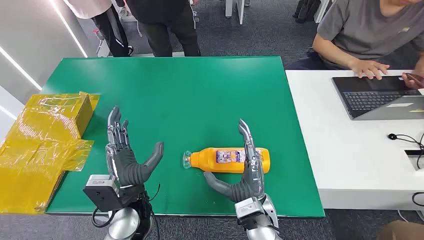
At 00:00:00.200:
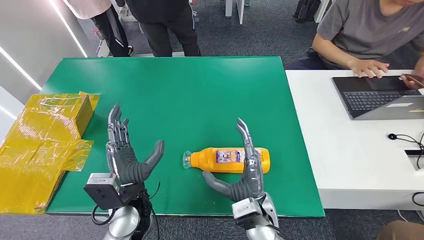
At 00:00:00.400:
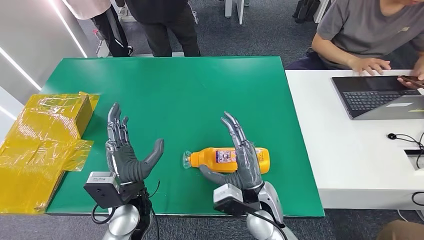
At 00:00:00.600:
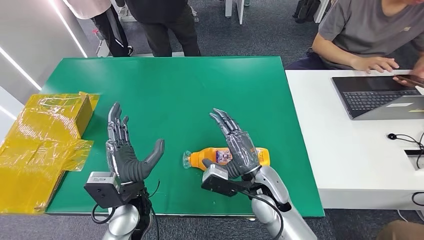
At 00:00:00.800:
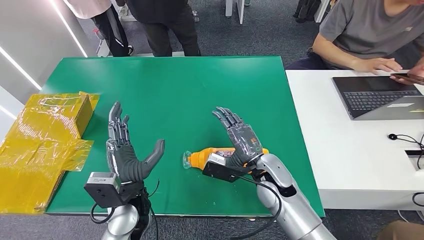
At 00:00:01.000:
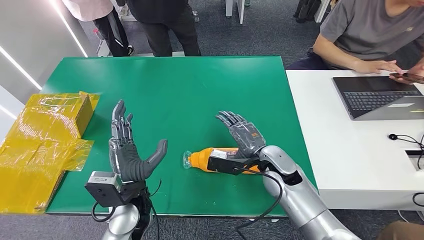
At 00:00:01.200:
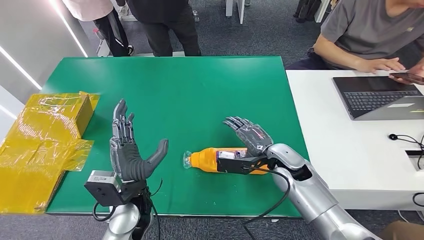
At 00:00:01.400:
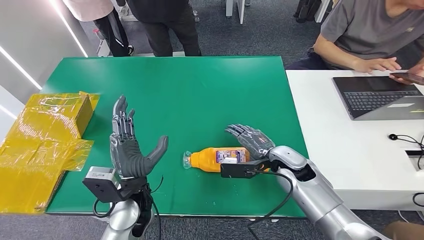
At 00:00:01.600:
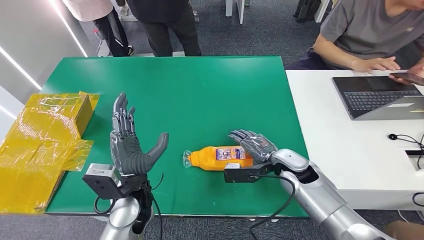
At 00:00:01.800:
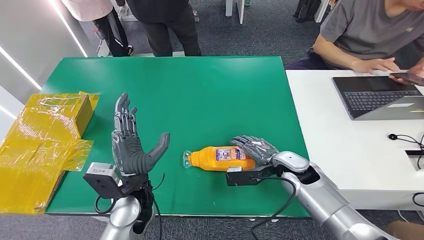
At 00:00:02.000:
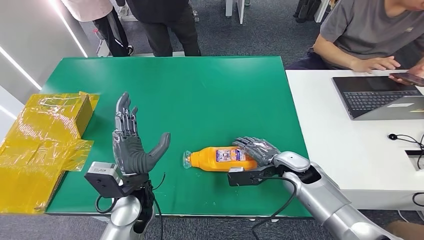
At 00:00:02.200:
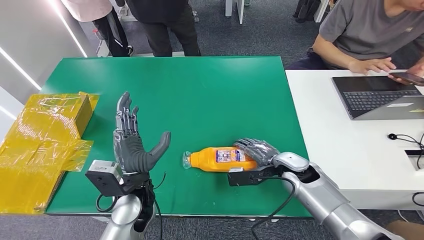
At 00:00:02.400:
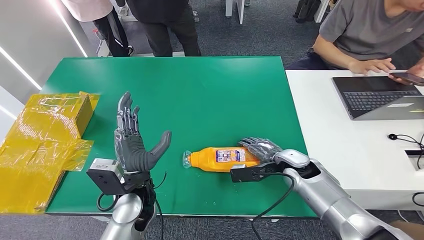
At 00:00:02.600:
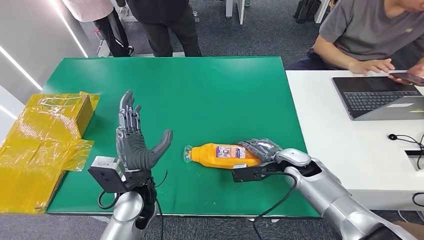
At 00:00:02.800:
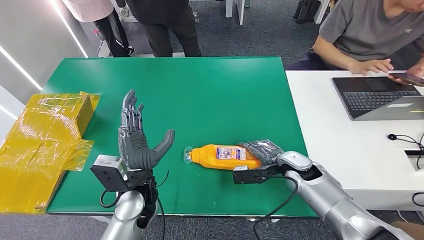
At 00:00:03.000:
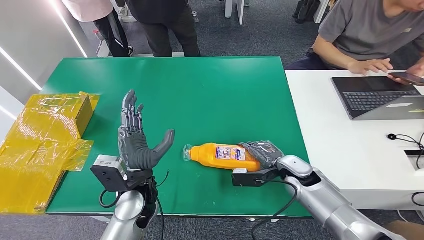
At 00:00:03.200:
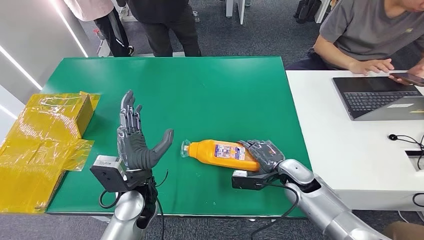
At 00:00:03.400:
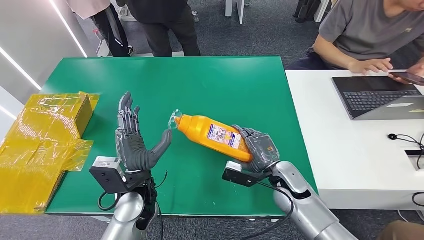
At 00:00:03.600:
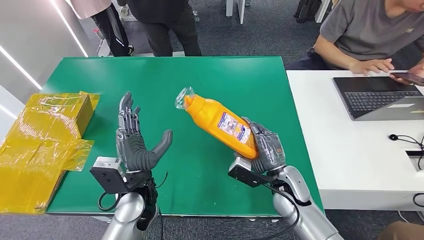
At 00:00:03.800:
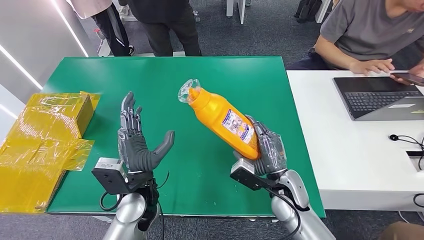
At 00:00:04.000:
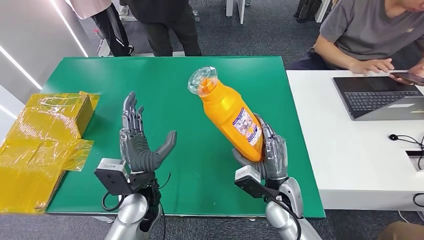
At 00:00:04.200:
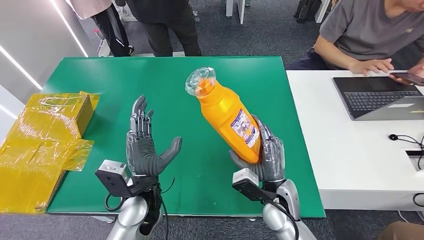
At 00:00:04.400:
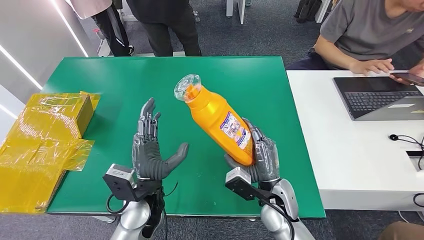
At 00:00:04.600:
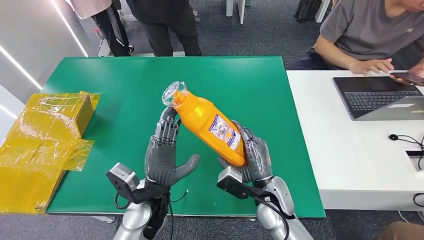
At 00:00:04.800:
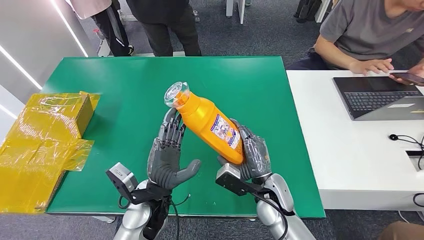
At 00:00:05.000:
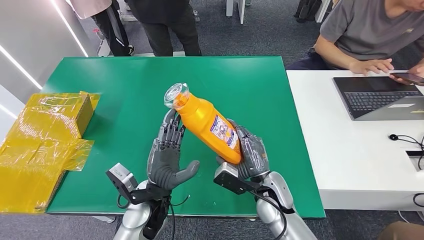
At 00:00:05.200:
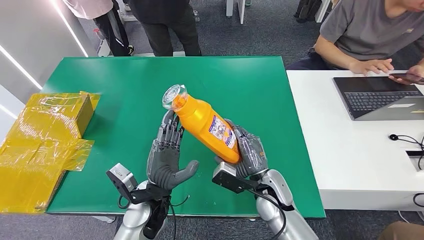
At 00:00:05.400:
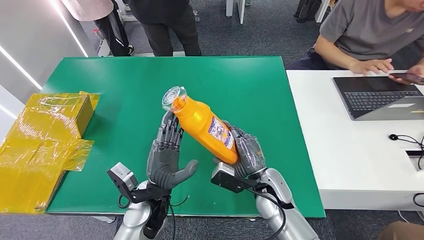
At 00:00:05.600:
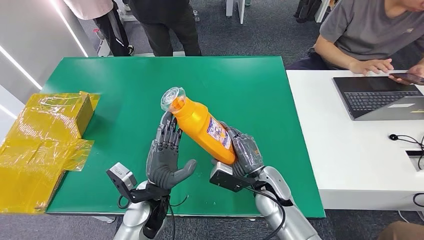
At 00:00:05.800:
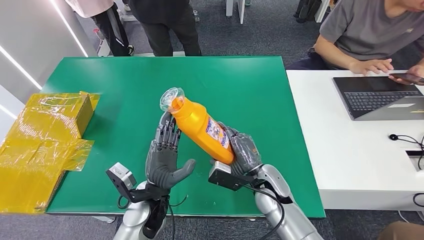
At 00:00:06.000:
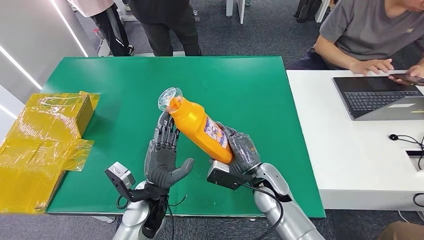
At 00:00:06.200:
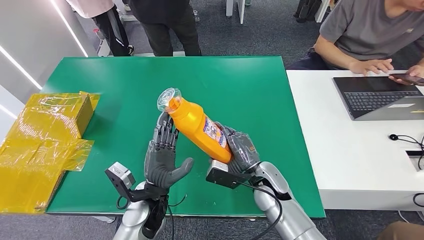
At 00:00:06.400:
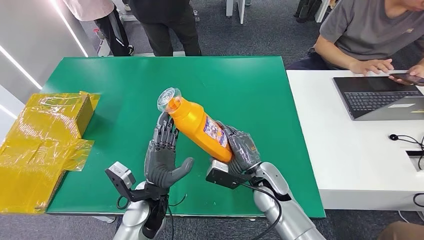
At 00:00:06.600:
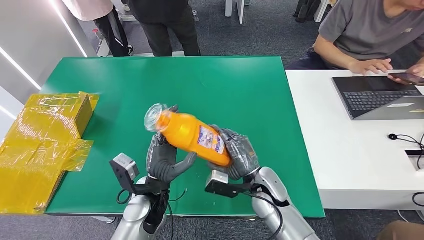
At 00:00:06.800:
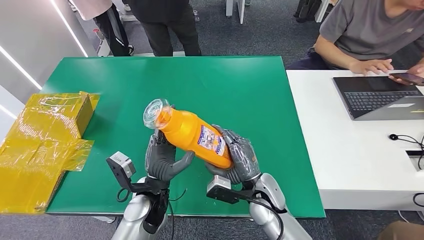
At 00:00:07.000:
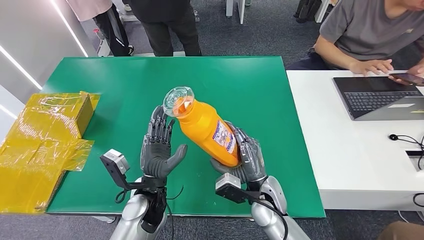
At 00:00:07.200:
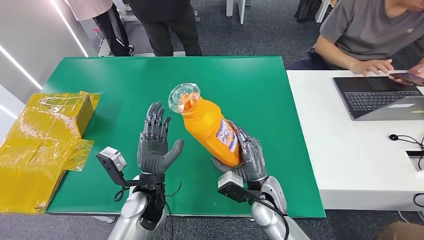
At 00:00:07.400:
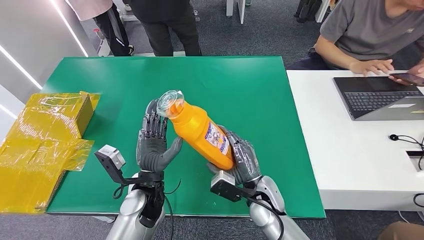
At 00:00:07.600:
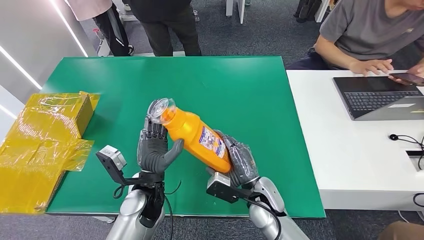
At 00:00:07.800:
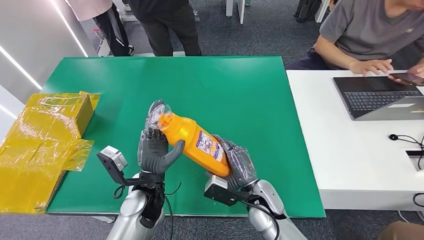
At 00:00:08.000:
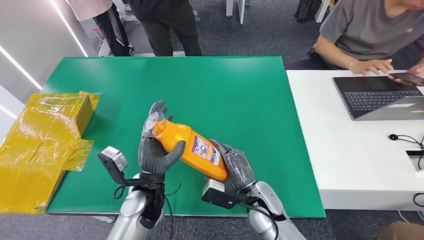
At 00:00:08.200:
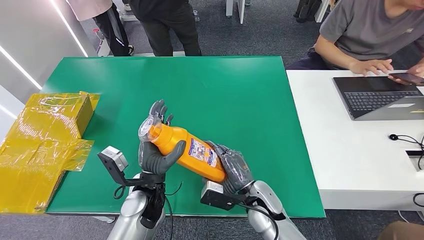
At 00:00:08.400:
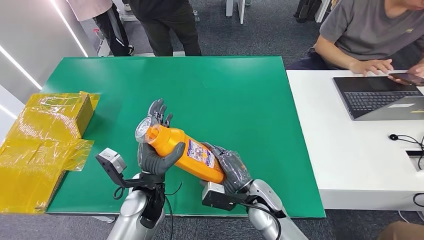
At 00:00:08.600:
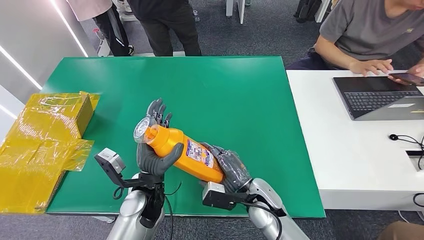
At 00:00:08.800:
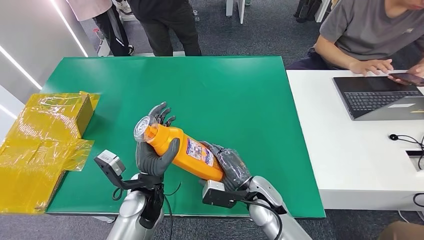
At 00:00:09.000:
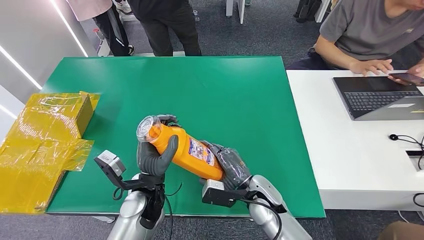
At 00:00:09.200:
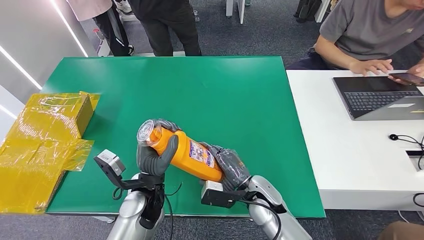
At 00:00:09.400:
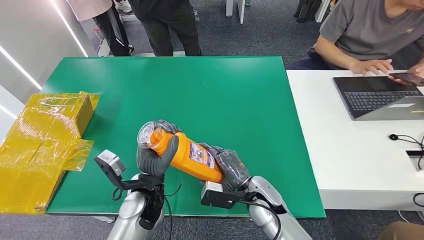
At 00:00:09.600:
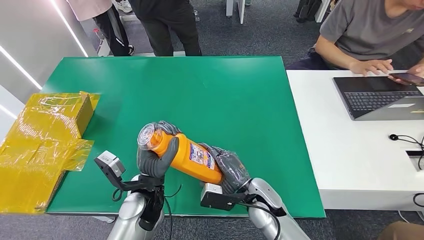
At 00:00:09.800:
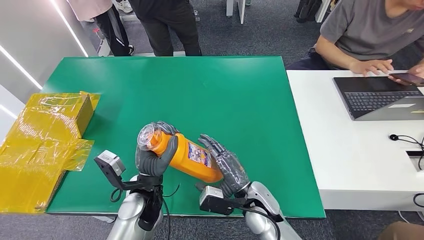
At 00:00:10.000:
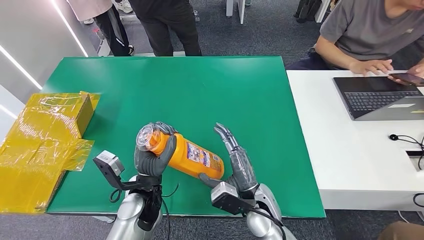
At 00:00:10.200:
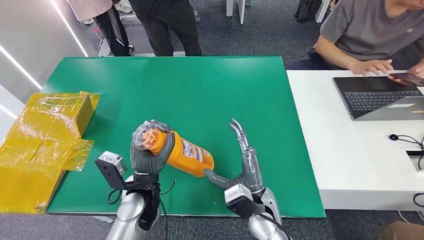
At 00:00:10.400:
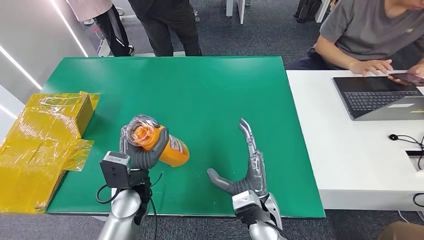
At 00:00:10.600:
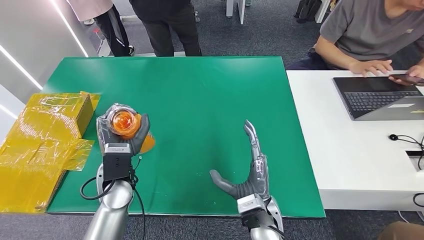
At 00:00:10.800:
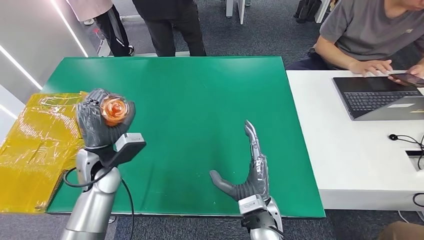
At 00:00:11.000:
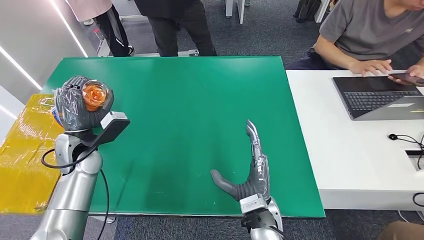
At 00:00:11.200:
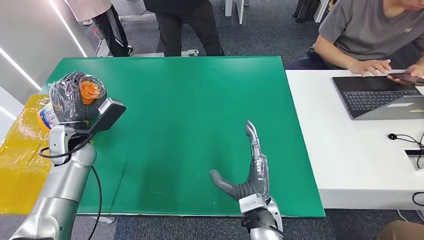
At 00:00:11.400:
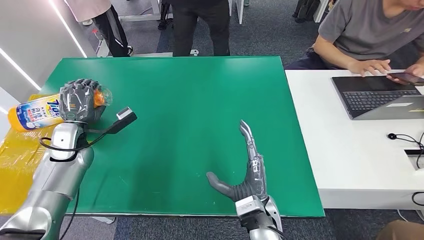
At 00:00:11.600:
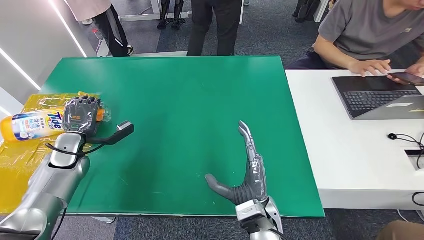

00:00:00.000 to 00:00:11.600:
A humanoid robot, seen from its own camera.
Step, 00:00:00.000 to 00:00:04.000: Pick up the bottle from the table.
00:00:01.400 to 00:00:02.800: The right hand is displaced to the right by some 5 cm.
00:00:02.800 to 00:00:04.400: The right hand is displaced to the left and backward by about 15 cm.

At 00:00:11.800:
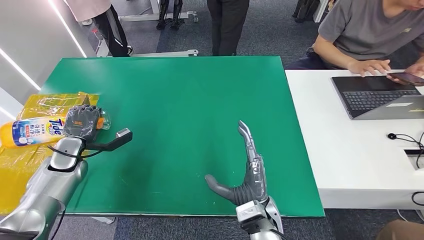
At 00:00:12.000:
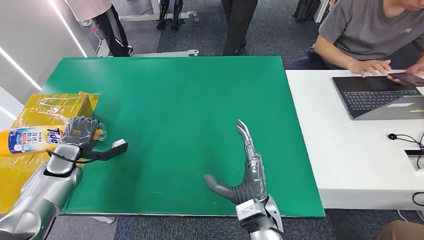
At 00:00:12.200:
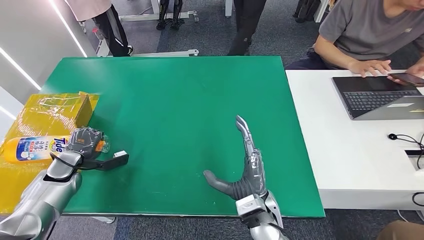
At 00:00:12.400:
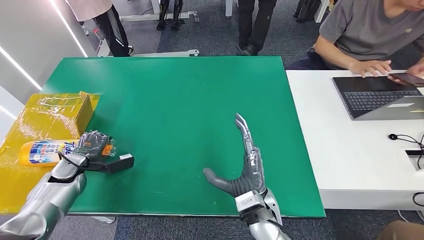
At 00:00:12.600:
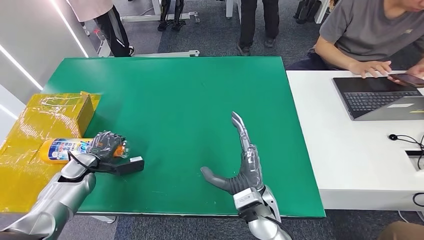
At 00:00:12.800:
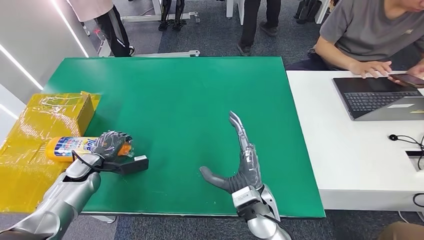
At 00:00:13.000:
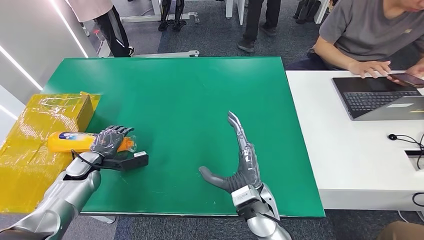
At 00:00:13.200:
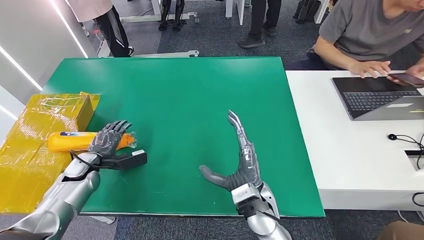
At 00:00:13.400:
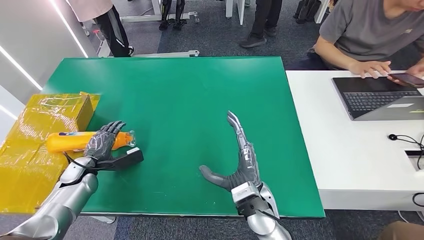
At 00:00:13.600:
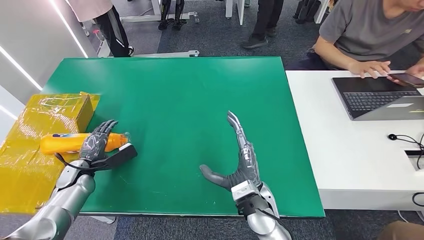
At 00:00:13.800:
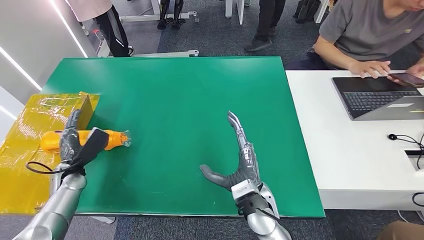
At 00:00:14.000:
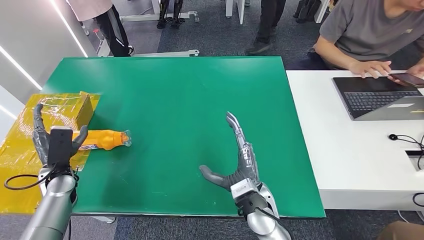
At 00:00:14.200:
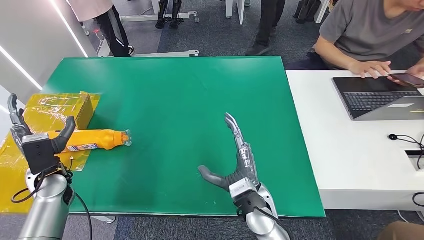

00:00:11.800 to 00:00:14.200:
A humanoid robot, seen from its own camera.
Step, 00:00:11.800 to 00:00:14.200: Turn the bottle to the front side.
00:00:11.800 to 00:00:13.000: The left hand goes roughly 5 cm downward.
00:00:13.000 to 00:00:14.200: The left hand travels upward and backward by about 10 cm.
